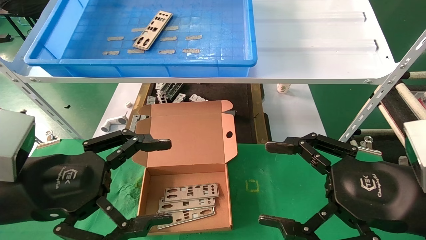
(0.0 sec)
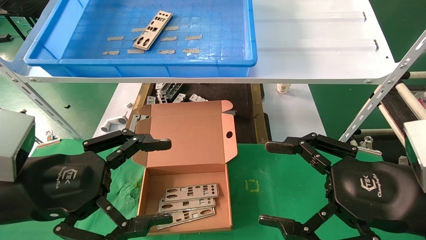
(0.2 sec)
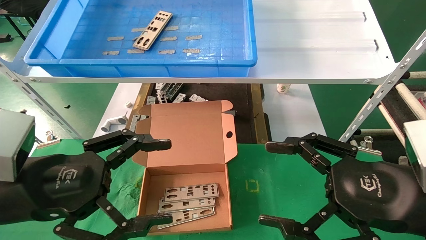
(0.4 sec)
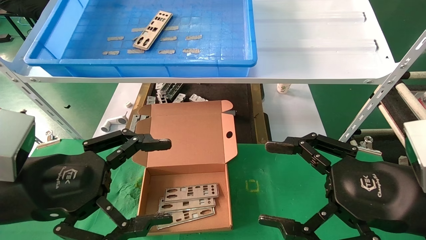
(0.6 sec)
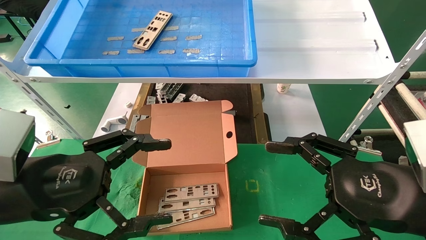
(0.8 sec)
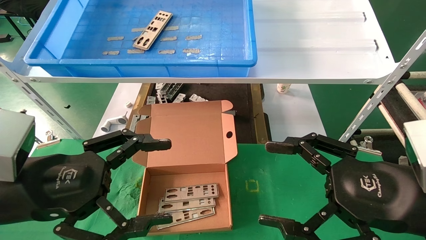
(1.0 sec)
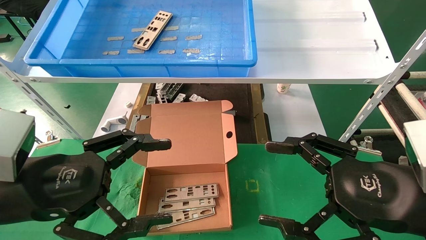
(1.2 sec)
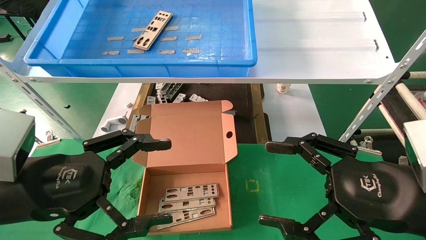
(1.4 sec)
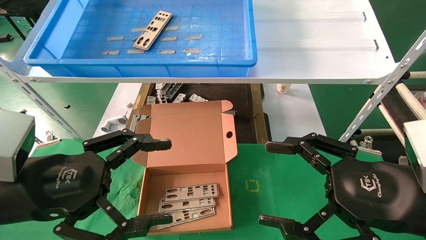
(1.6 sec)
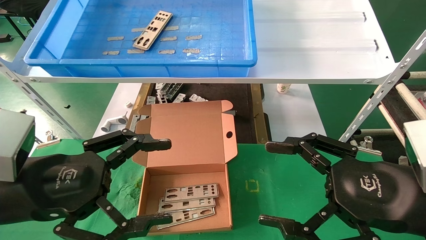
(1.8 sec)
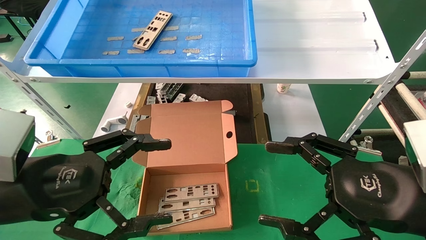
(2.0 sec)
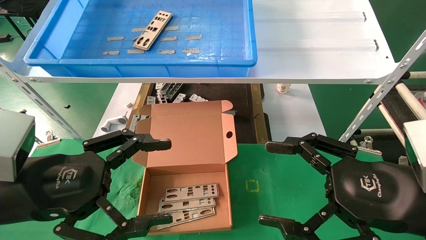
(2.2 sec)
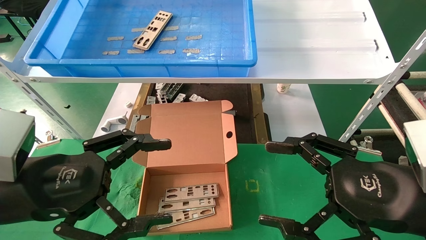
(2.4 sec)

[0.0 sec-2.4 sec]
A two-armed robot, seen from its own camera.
Task of the whole recording: pick up the parts on the tray and put them in the cardboard box.
0.0 sec to 2.4 sec: Neither gripper changes place.
